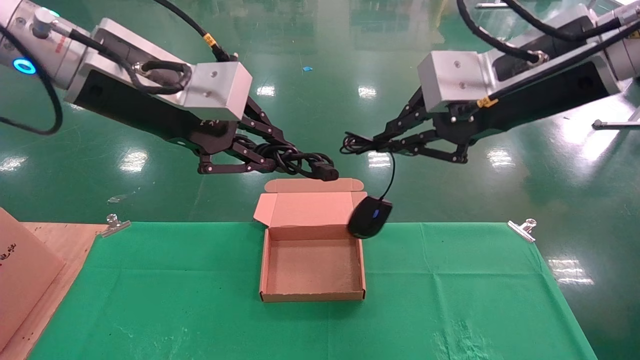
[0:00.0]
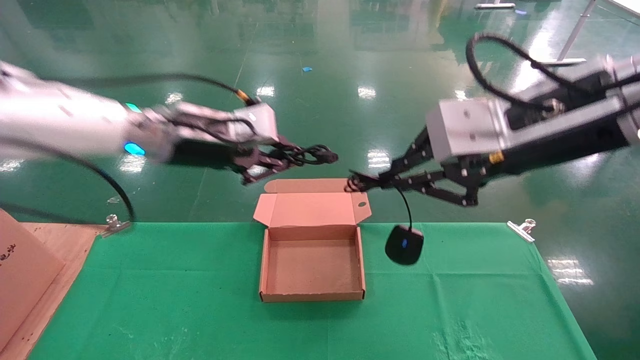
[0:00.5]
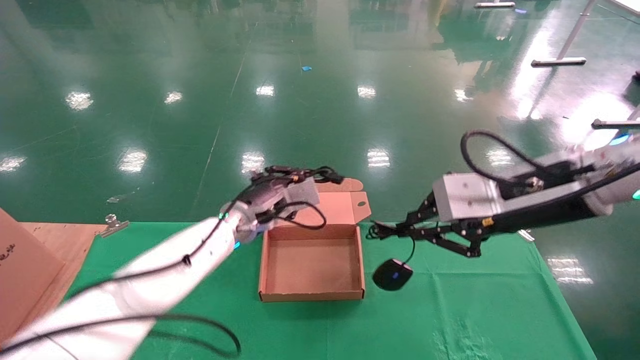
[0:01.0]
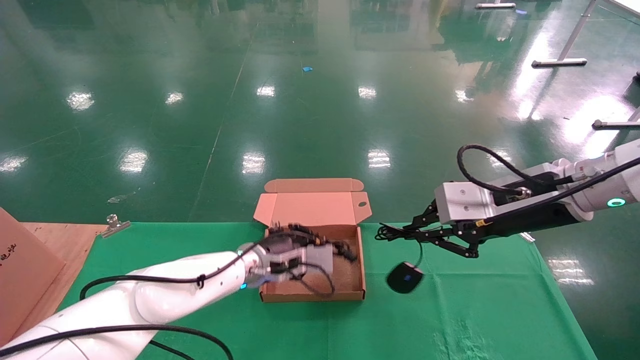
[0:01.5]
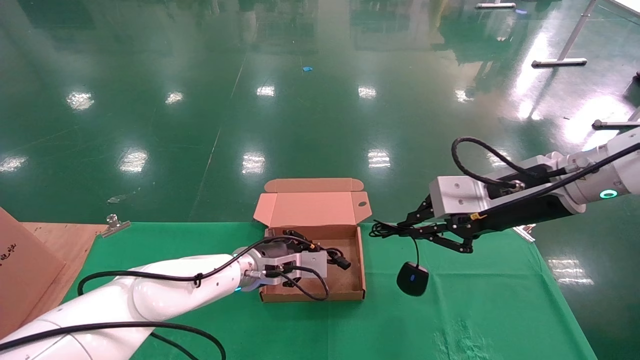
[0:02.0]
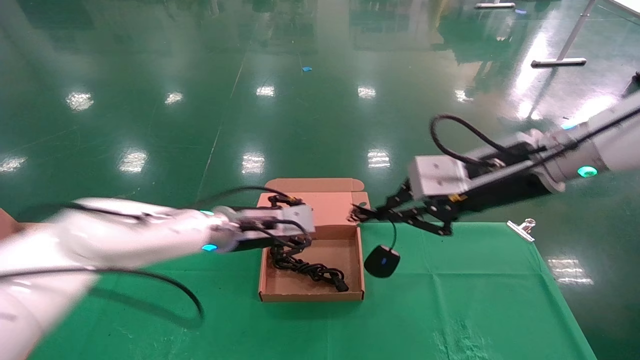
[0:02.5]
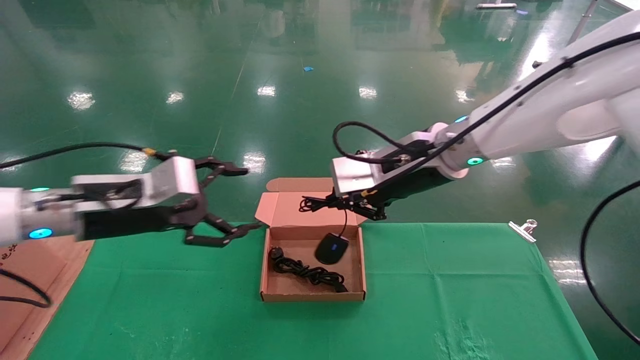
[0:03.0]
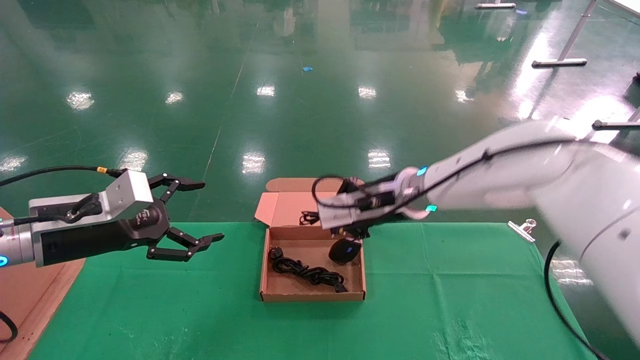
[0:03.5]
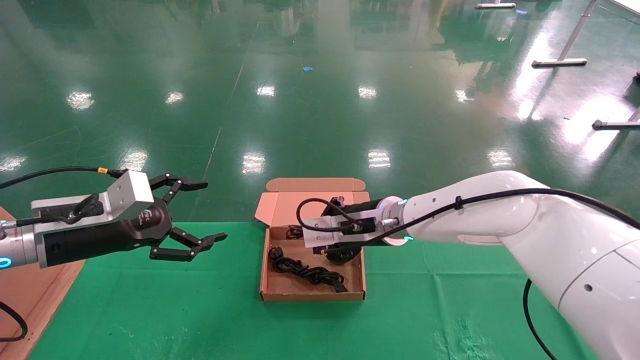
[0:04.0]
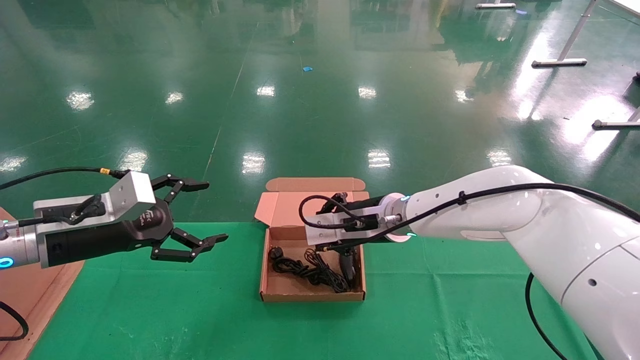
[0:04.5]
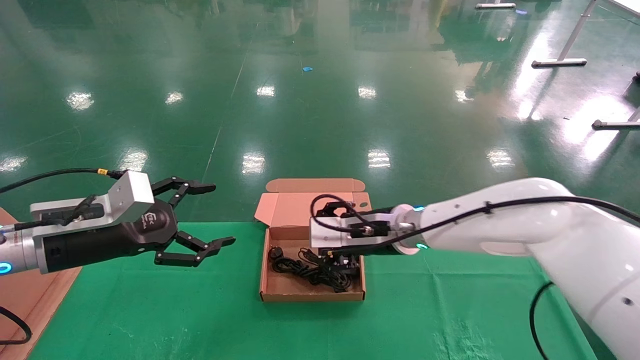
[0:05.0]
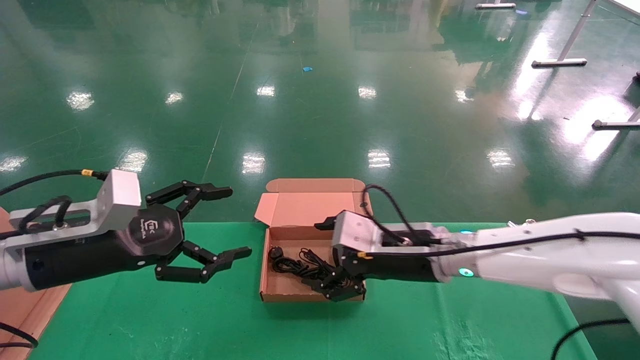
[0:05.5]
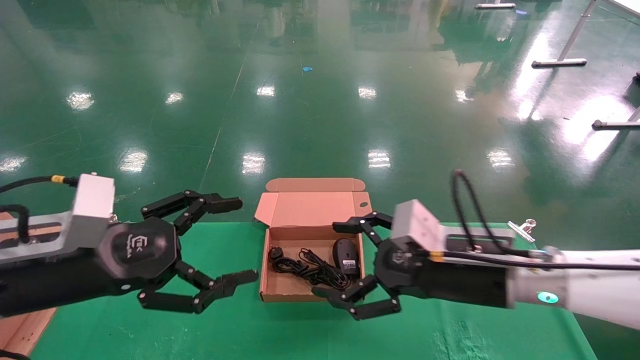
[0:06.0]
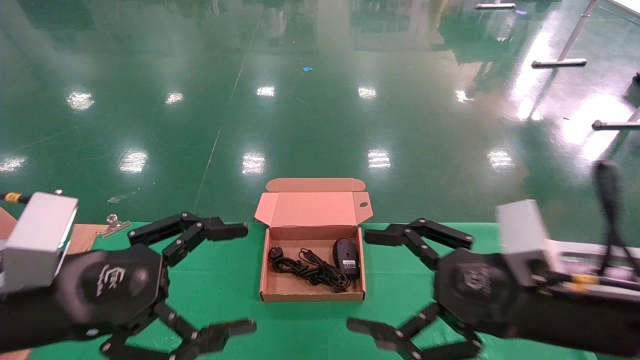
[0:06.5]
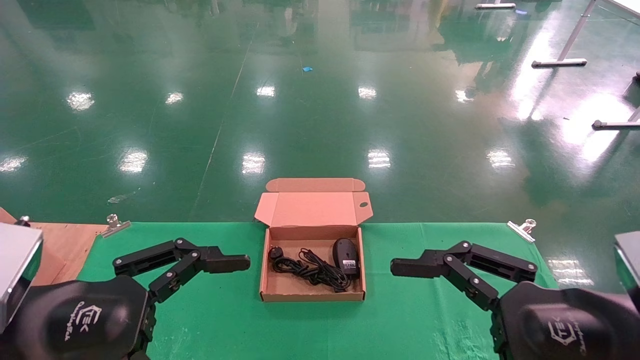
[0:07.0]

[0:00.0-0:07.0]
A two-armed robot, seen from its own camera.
Step, 0:00.0 to 0:04.5: Place the mouse and power cord into the box.
0:00.0 to 0:02.0: The right gripper goes roughly 15 cm downward and forward. Meanwhile the left gripper moves downward and forward, approximately 35 cm.
0:02.0 to 0:03.5: The left gripper moves to the left, backward and upward, some 30 cm, and opens its fingers. Meanwhile the right gripper goes some 15 cm to the left and forward.
0:03.5 to 0:05.0: The right gripper is displaced downward by about 5 cm, and opens its fingers.
0:05.0 to 0:07.0: The right gripper goes some 30 cm backward and to the right, and opens up. Meanwhile the left gripper heads backward, covering some 15 cm.
